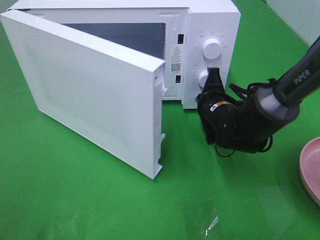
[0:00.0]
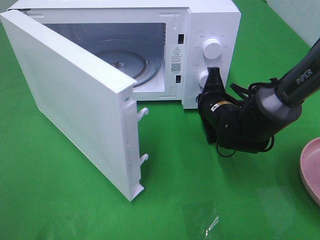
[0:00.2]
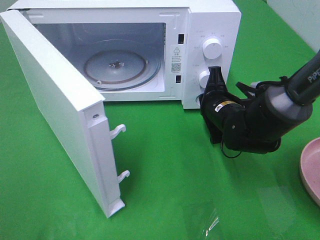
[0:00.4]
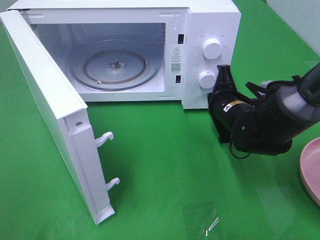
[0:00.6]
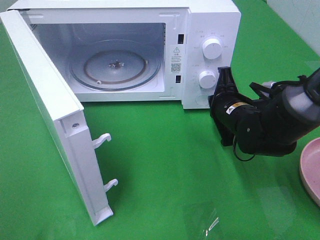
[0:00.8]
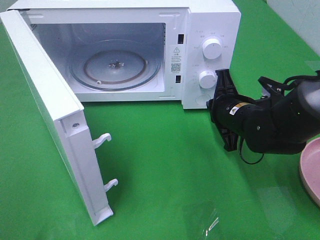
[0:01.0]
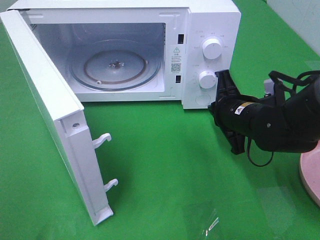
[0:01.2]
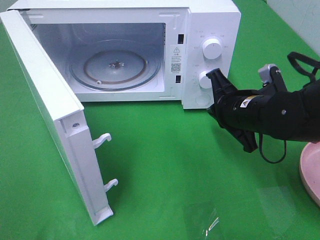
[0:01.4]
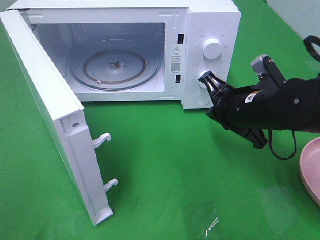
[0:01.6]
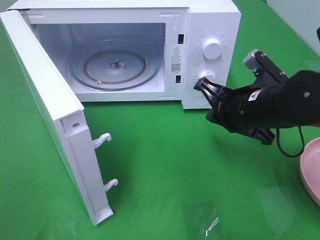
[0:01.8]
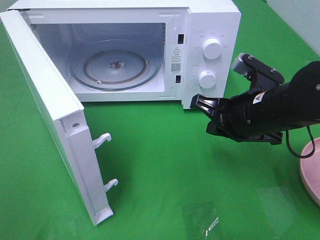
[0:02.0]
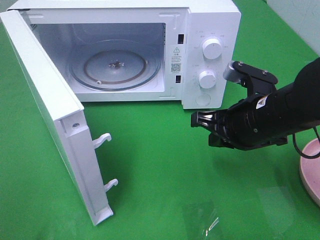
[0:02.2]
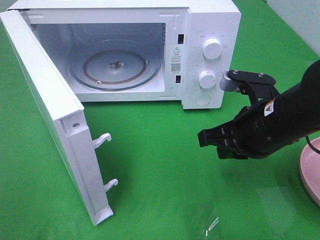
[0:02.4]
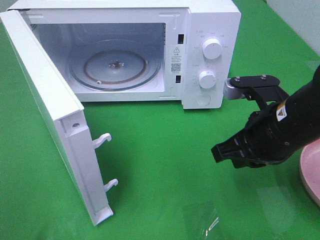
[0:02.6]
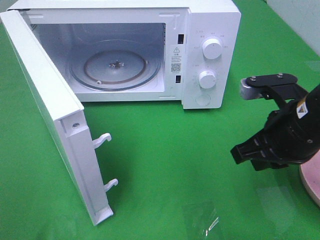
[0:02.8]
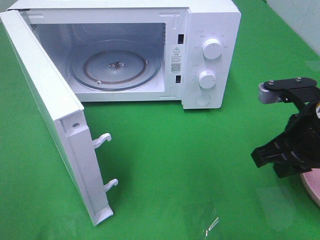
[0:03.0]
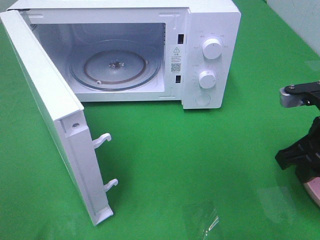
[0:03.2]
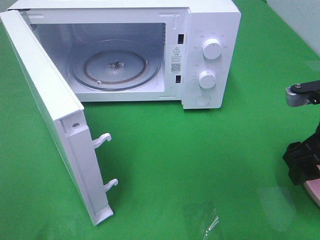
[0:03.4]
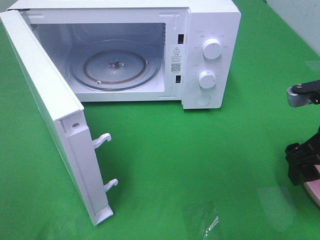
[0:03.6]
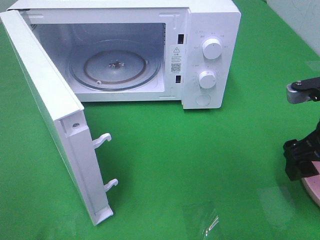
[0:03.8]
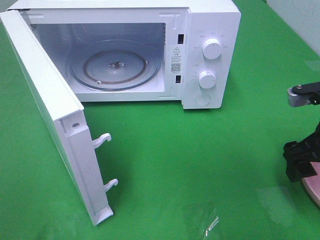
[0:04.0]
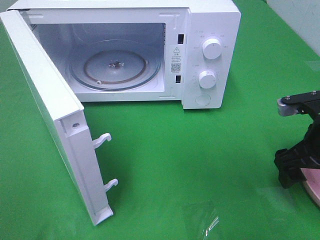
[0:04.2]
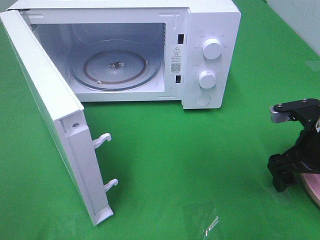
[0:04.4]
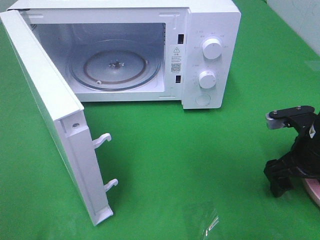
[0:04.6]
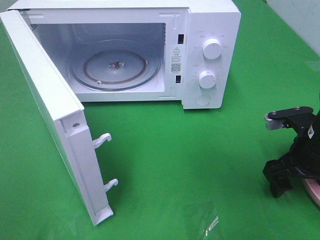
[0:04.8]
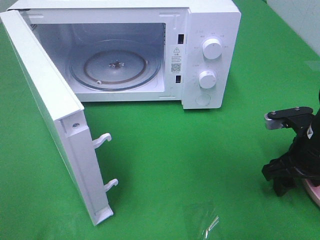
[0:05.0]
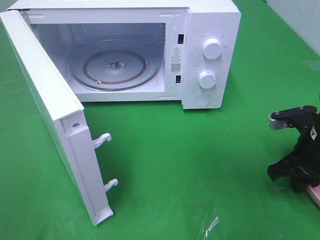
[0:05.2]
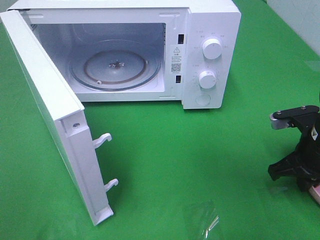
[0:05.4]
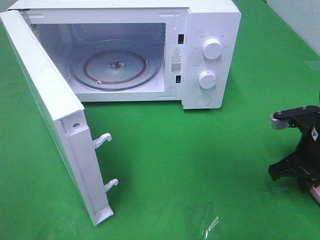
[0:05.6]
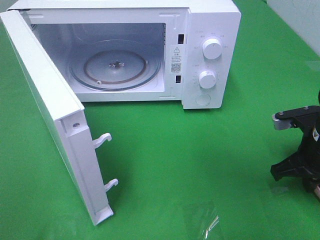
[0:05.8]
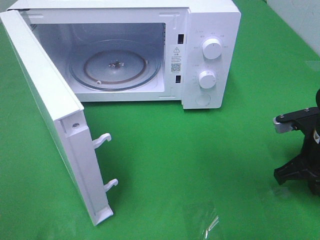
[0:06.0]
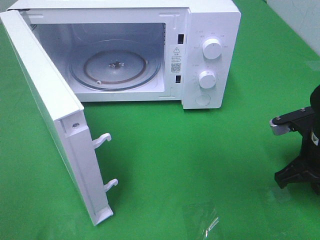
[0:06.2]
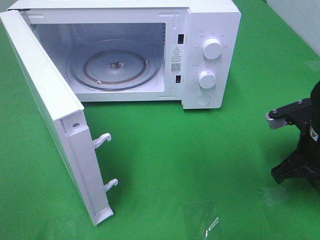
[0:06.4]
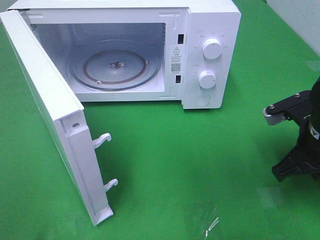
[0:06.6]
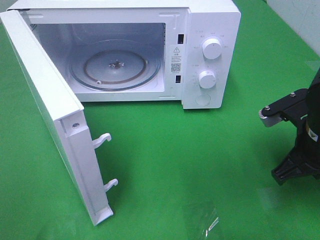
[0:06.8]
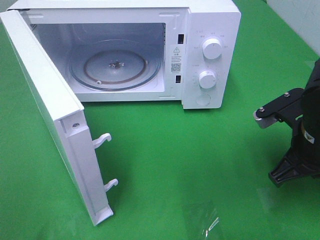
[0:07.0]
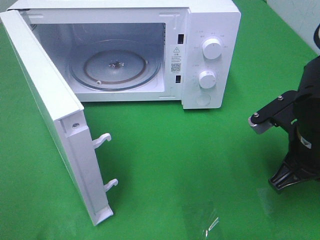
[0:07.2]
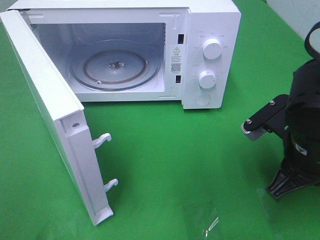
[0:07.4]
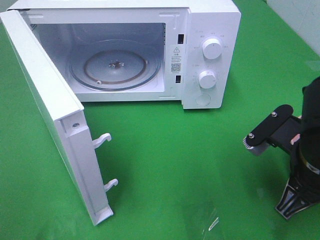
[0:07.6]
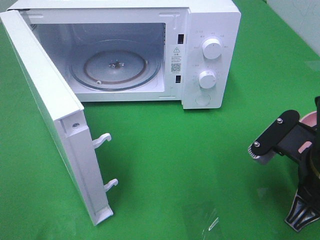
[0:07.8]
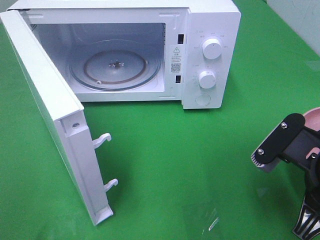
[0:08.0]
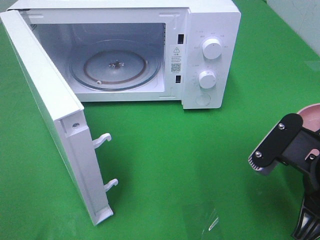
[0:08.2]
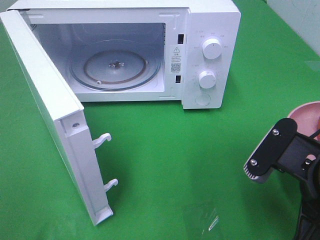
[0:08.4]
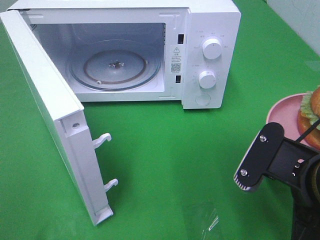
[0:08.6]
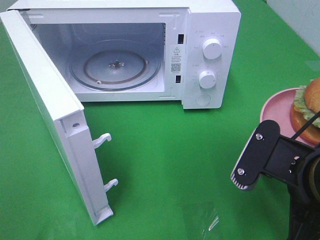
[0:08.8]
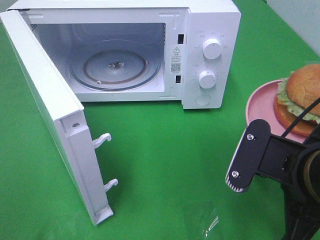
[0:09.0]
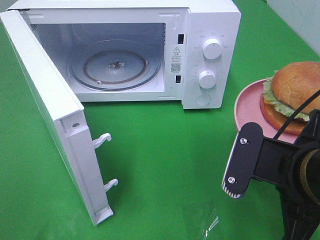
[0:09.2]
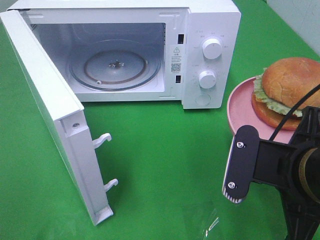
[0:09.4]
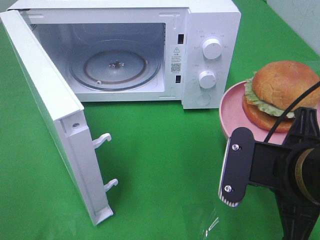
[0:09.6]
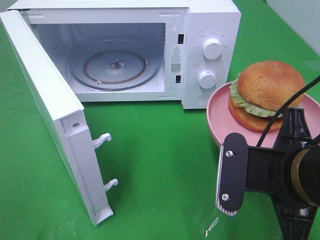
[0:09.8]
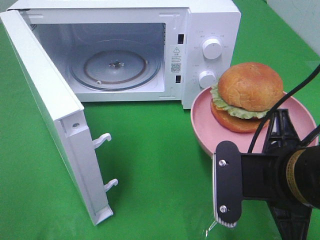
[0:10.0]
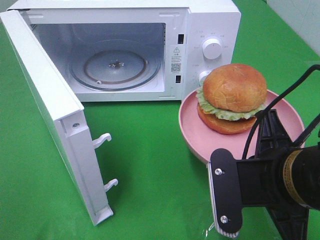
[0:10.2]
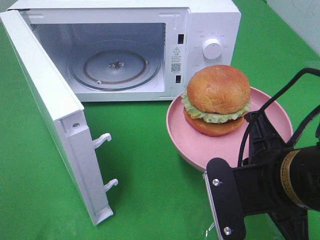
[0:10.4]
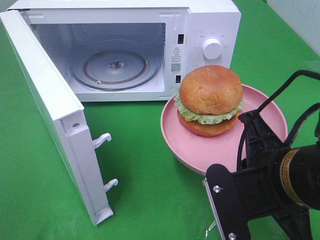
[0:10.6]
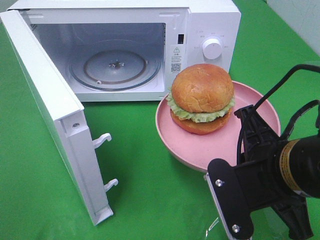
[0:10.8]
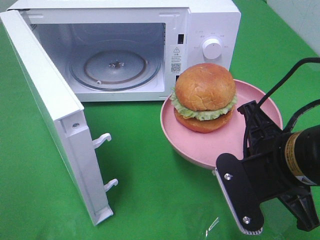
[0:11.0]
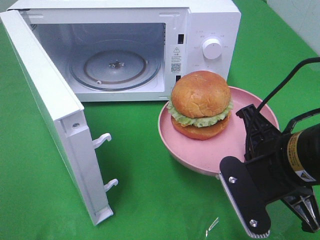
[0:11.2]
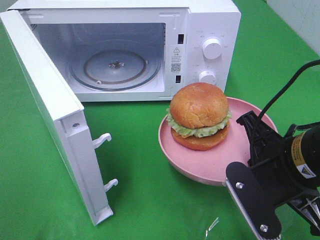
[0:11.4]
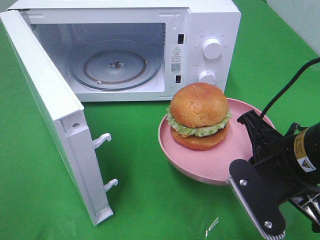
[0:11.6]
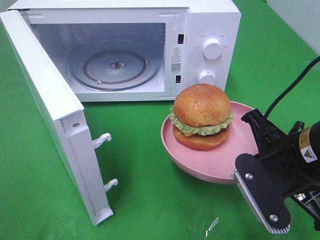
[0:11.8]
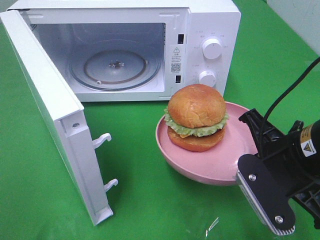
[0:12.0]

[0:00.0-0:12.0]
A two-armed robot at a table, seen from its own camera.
Task of the whole recording: Heat the burger.
Step, 0:00.6 to 0:06.0: Right hand: grab the plate with the hamburger.
0:00.0 to 0:01.6: The right gripper goes some 10 cm backward and upward.
0:01.6 to 0:03.0: The right gripper moves backward and to the right, approximately 10 cm.
0:03.0 to 0:04.4: The right gripper travels downward by some 5 cm, and opens.
0:04.4 to 0:06.0: The right gripper closes.
0:06.0 to 0:07.6: The right gripper goes about 10 cm to the left and backward.
0:07.6 to 0:09.0: The right gripper shifts by about 5 cm.
0:10.4 to 0:12.0: The right gripper shifts by approximately 5 cm.

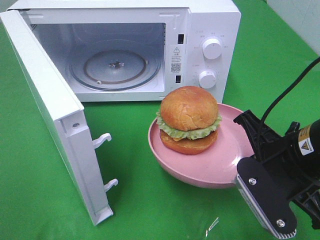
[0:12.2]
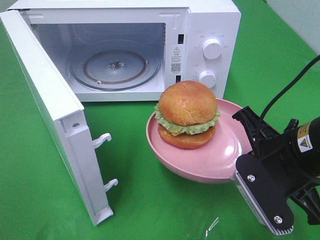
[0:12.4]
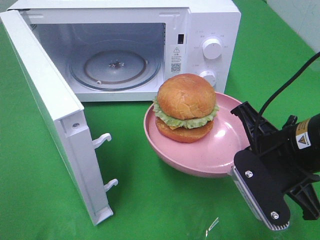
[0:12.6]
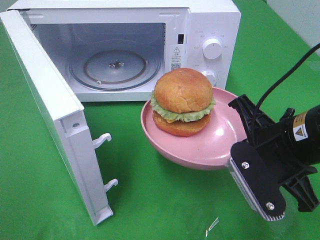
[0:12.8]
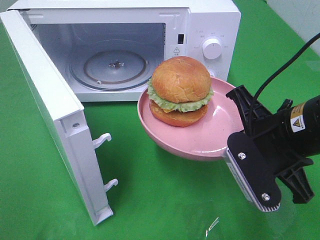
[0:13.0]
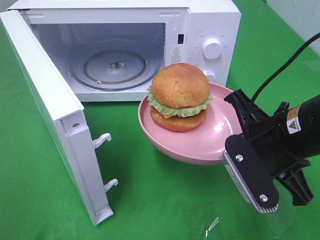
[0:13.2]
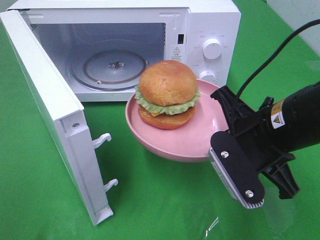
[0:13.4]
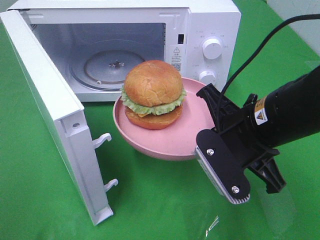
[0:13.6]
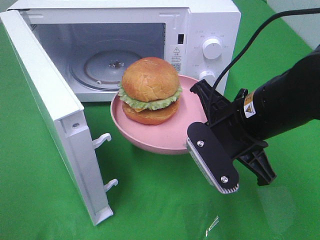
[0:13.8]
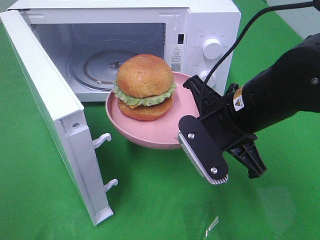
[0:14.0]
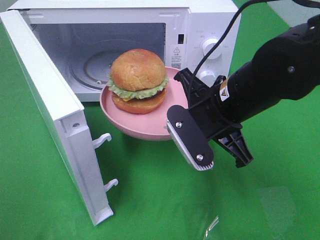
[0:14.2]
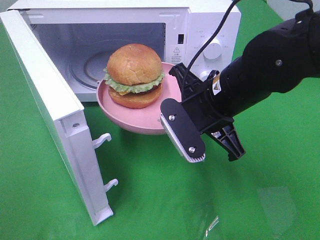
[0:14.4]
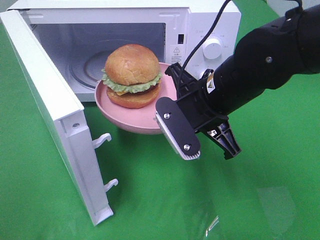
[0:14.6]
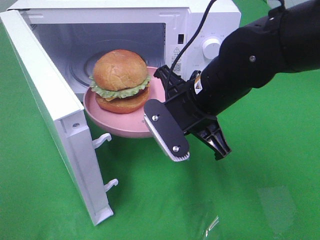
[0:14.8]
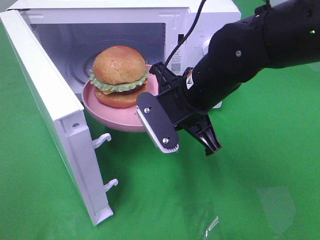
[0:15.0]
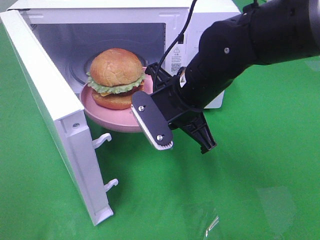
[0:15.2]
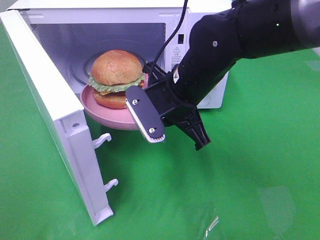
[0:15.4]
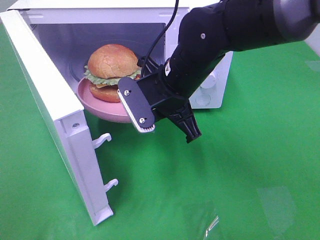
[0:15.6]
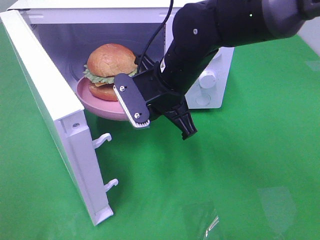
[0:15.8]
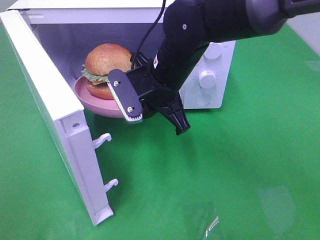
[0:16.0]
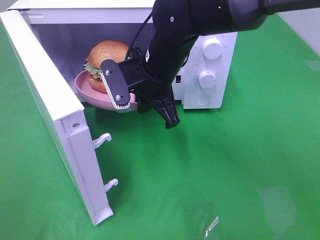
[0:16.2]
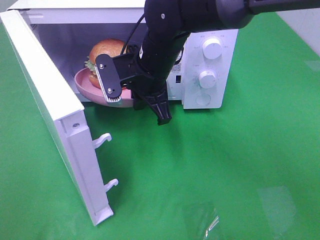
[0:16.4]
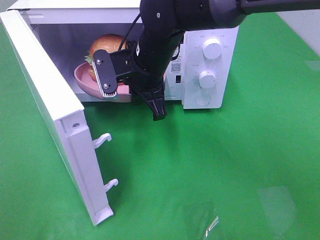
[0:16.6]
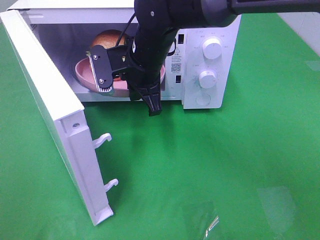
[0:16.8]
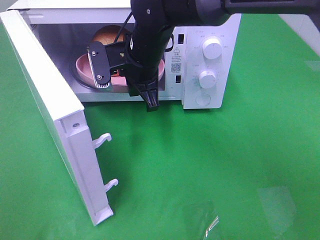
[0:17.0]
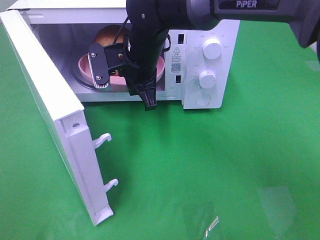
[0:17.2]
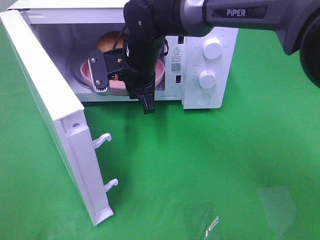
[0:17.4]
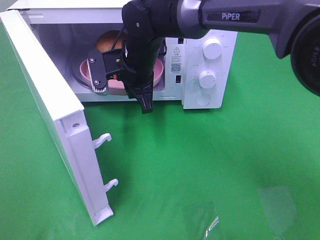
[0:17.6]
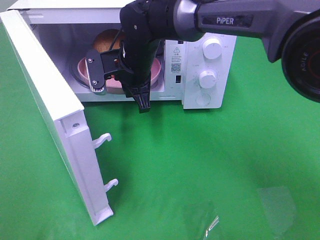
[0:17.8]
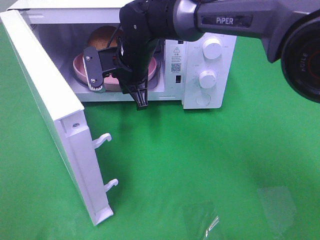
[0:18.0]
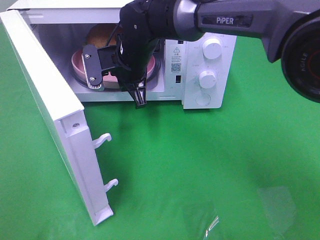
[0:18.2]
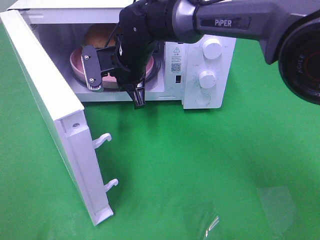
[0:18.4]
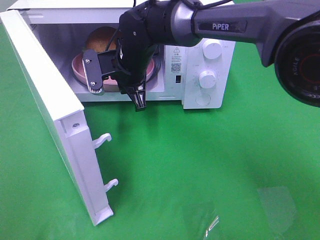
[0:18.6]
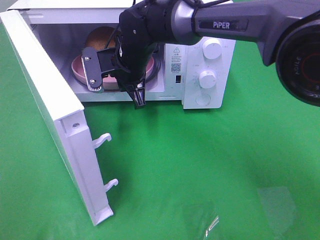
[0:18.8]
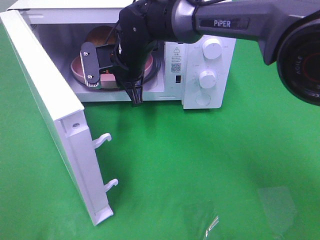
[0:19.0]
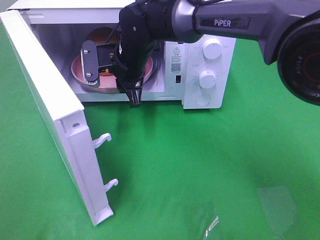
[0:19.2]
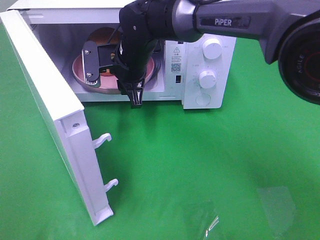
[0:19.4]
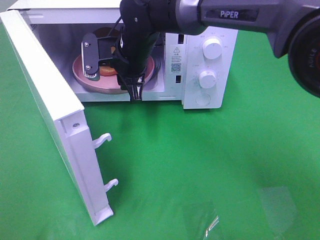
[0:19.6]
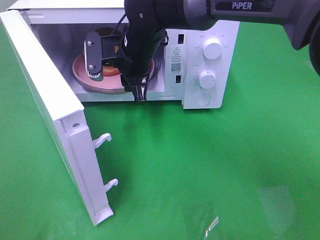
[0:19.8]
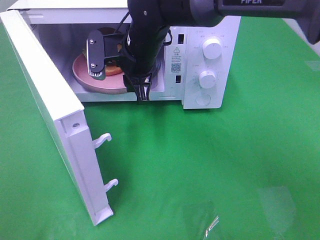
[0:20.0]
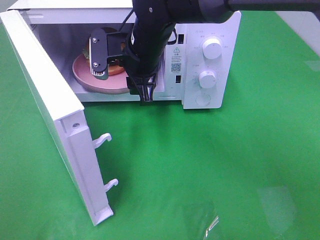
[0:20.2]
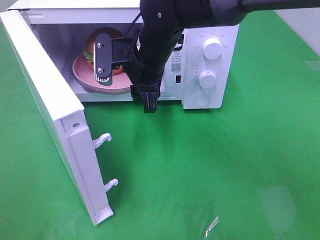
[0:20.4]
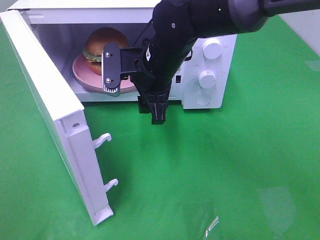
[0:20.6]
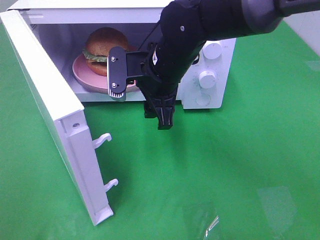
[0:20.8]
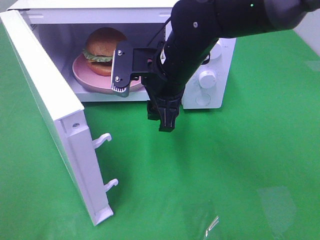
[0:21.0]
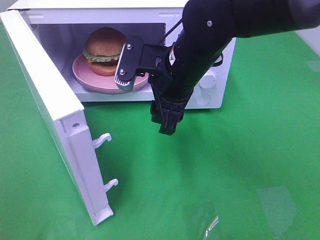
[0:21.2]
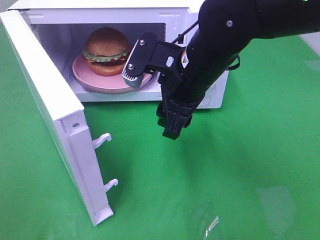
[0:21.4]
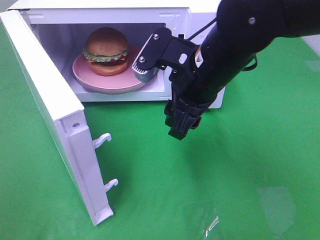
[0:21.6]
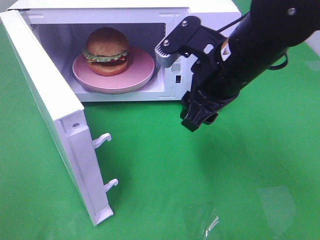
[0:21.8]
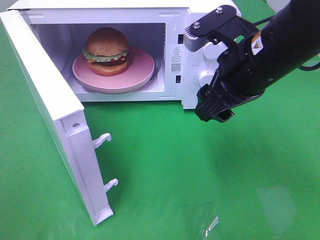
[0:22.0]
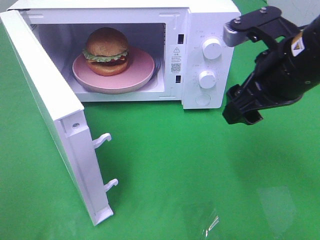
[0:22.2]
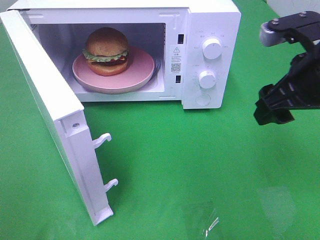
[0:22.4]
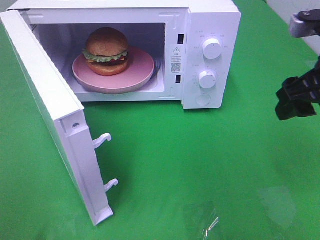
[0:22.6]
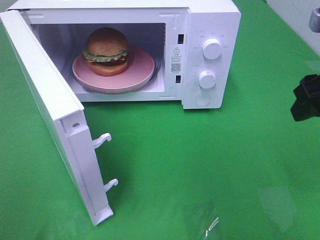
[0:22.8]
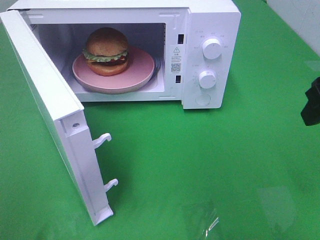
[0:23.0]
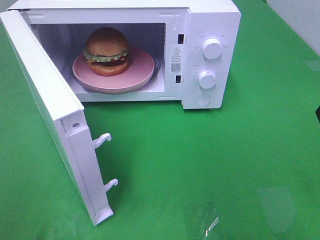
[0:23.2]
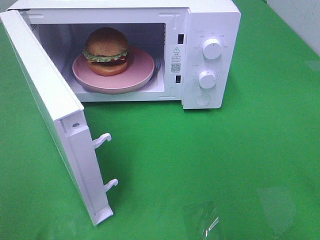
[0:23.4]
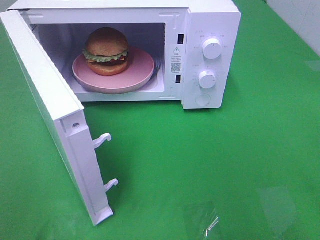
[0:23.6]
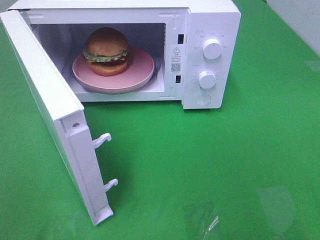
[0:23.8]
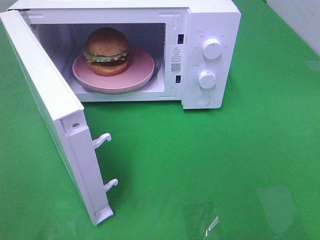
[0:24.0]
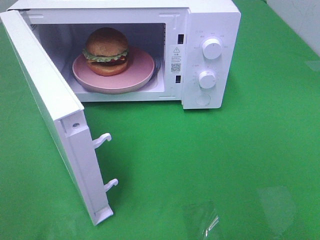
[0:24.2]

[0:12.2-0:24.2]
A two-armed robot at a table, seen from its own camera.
Task of the whole recording: Heat the burger.
Step, 0:12.2 to 0:19.0: Right hand: place the plate in the microwave.
0:12.2 to 0:13.8: The right gripper travels to the left by roughly 5 cm.
0:13.8 to 0:15.2: The right gripper travels to the left and forward by about 10 cm.
0:15.2 to 0:16.6: The right gripper heads forward and to the left, covering roughly 10 cm.
0:16.6 to 0:18.2: The right gripper changes place by approximately 5 cm.
0:18.2 to 0:19.8: The right gripper opens up.
0:19.8 to 0:21.2: The right gripper is displaced backward and to the right by some 10 cm.
0:21.2 to 0:22.6: The right gripper heads to the right, covering about 20 cm.
0:22.6 to 0:24.2: The right gripper heads backward, covering some 20 cm.
